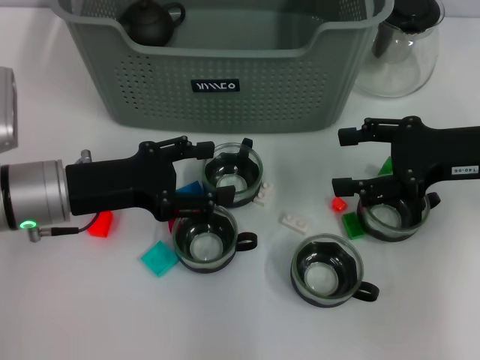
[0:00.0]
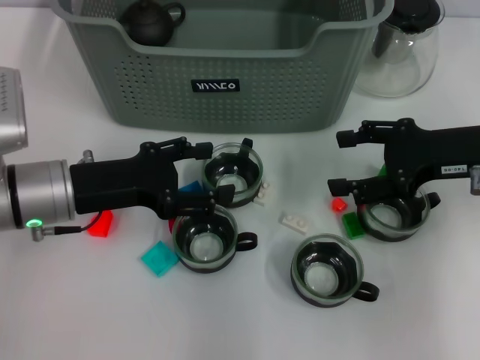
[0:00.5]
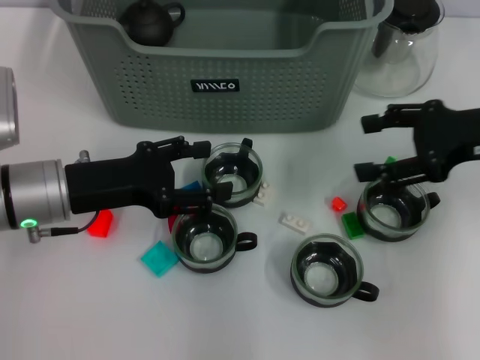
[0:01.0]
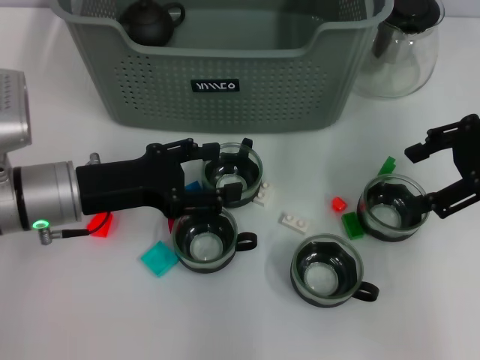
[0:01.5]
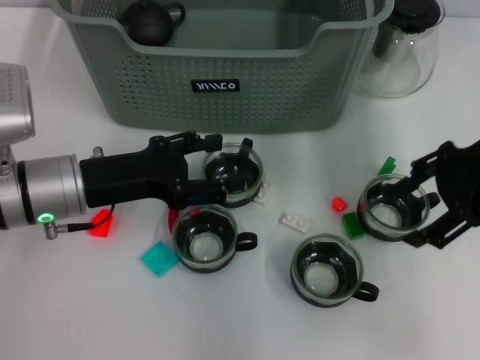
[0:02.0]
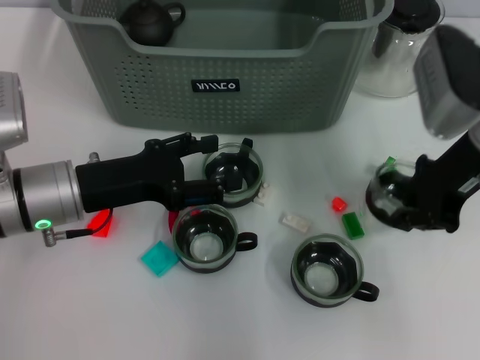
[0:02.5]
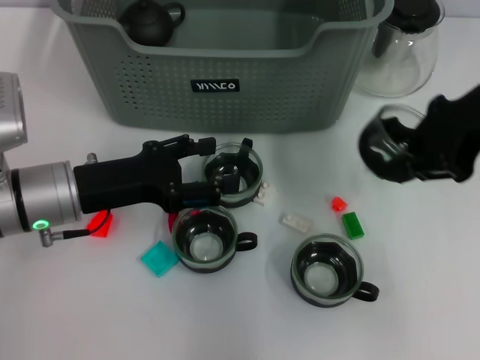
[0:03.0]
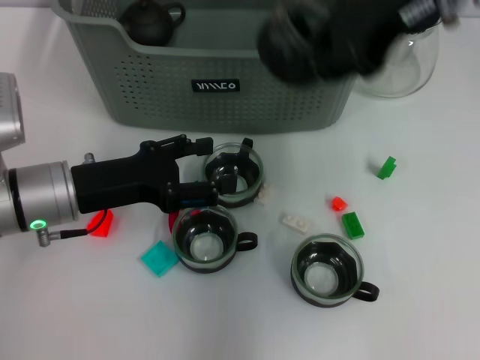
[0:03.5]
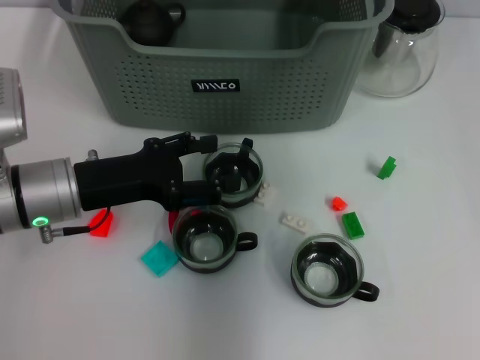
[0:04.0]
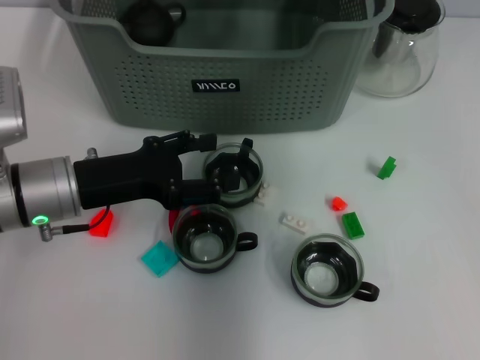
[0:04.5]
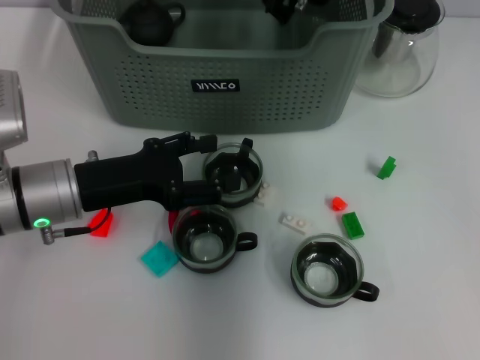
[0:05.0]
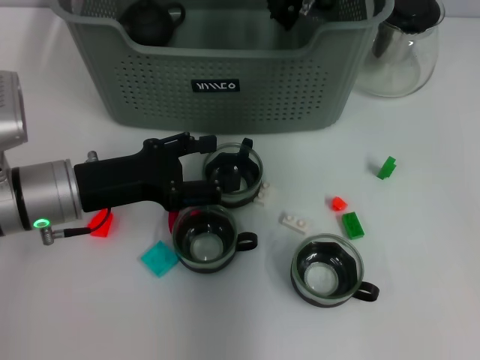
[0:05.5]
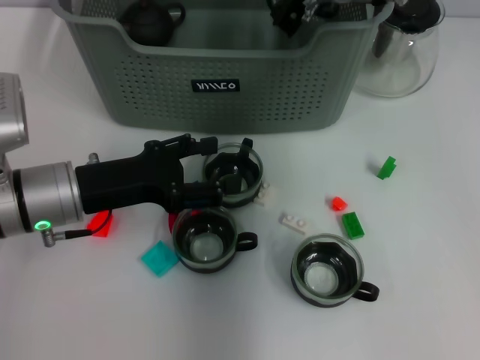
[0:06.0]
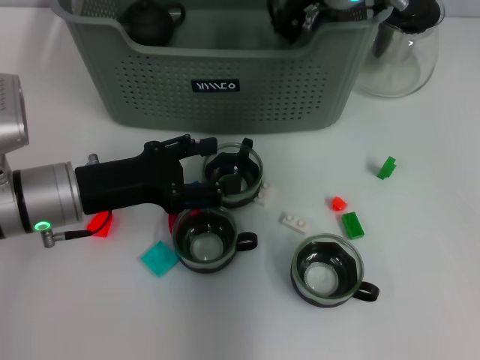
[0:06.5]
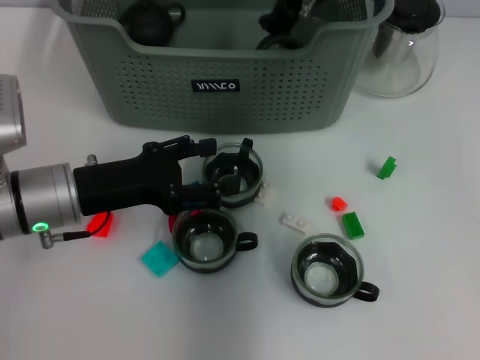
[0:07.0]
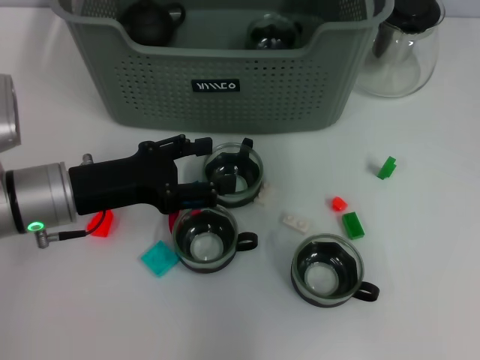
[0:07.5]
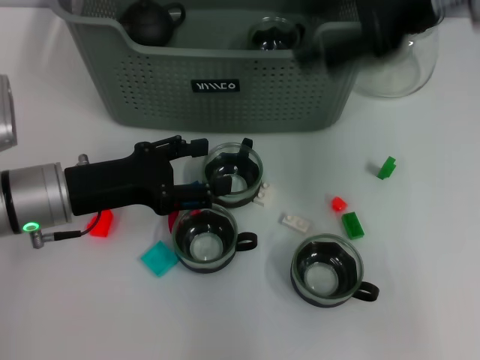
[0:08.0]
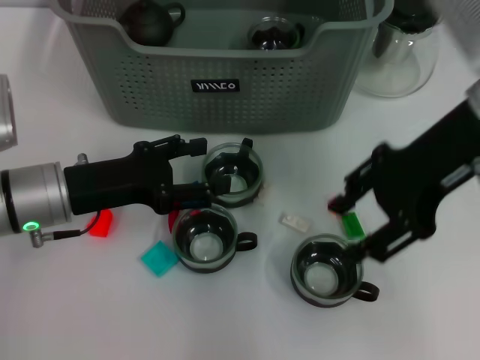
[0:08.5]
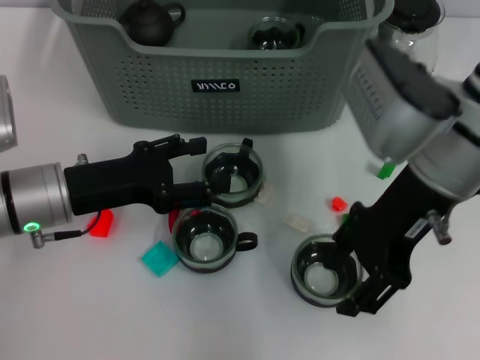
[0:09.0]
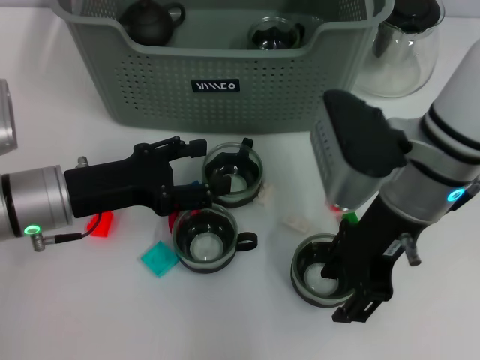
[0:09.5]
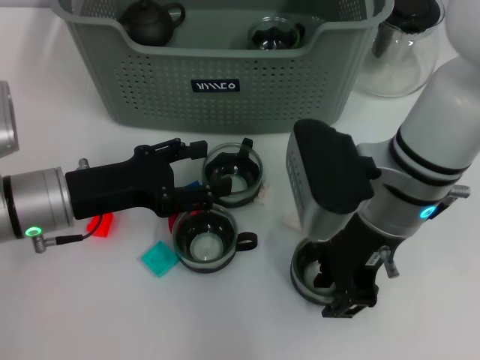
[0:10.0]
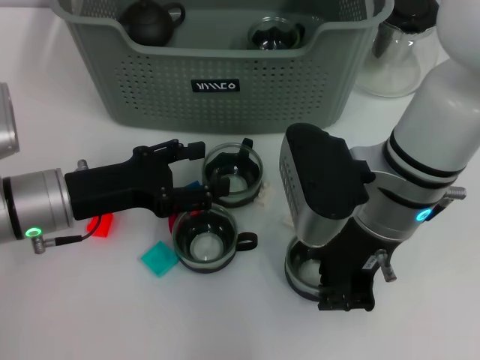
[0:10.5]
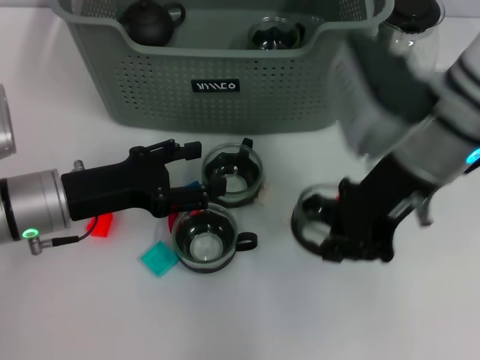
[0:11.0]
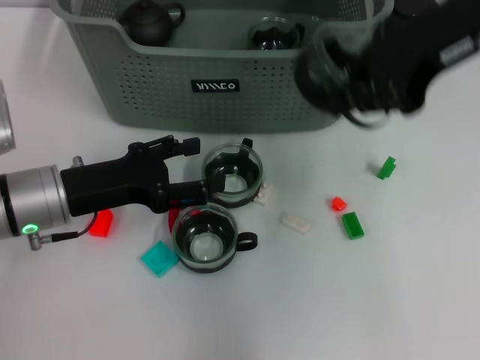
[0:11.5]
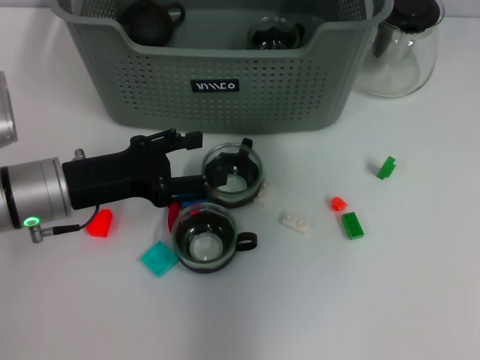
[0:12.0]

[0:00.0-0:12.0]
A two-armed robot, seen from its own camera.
Task of the whole recording: pick up the teacup on the table and place it into the storage bin, pick up the block on the table and place it into the storage bin.
Step, 0:00.0 to 0:02.0: Grasp the cup with right gripper.
Step, 0:02.5 to 0:06.5: Place the cup in the storage box with right gripper.
Step, 0:07.0 to 0:10.0: Grasp the cup with right gripper.
0:00.0 to 0:02.0: The right gripper moves upward, roughly 5 cm.
0:02.0 to 0:04.0: The right gripper goes roughly 25 cm to the left, upward and forward, and closes.
0:04.0 to 0:06.0: The right gripper is displaced downward by roughly 10 cm.
0:06.0 to 0:08.0: The right gripper goes some 20 cm backward, to the right and upward, and opens its fingers.
0:08.0 to 0:10.0: The right gripper goes approximately 20 cm downward and to the left.
0:10.0 to 0:12.0: The right gripper is displaced upward and forward by some 25 cm, and closes up.

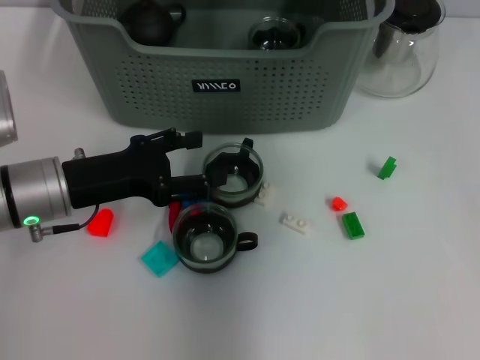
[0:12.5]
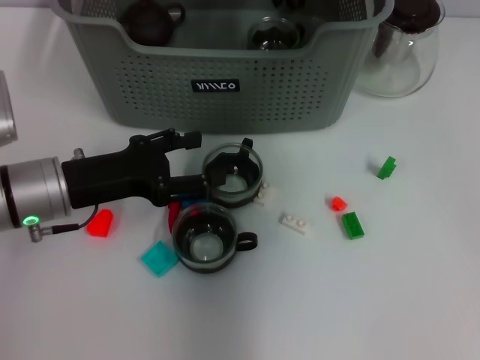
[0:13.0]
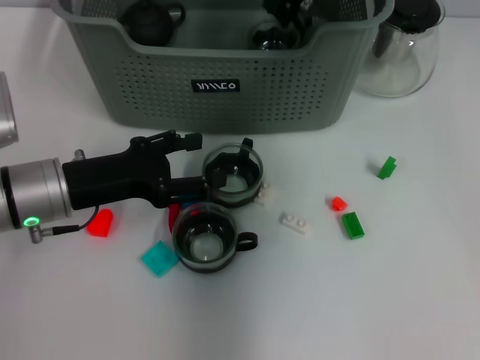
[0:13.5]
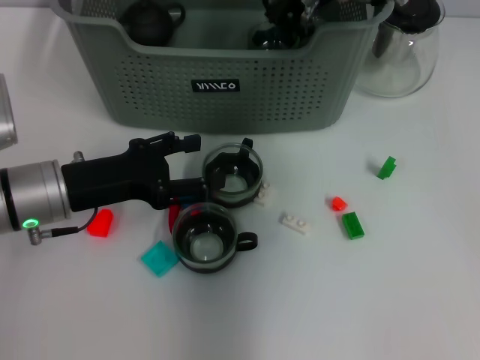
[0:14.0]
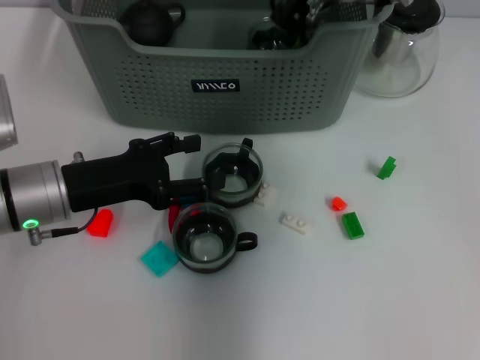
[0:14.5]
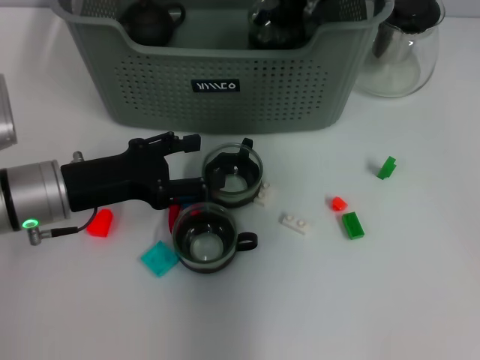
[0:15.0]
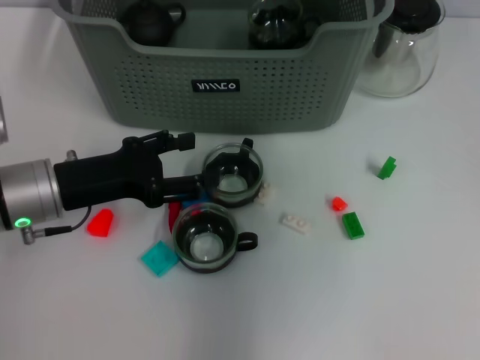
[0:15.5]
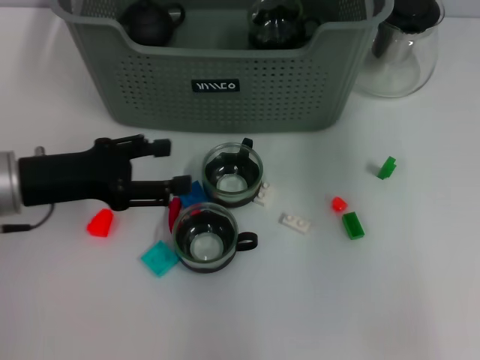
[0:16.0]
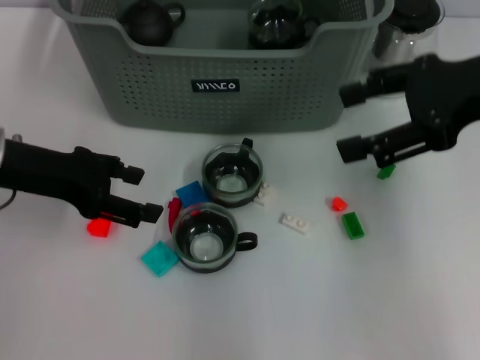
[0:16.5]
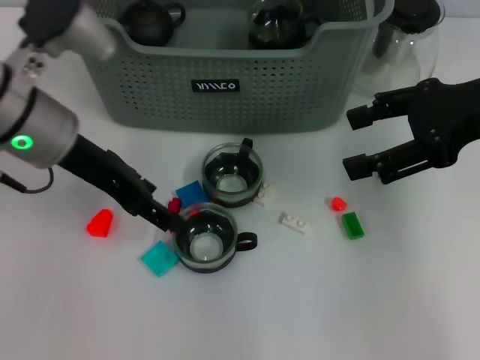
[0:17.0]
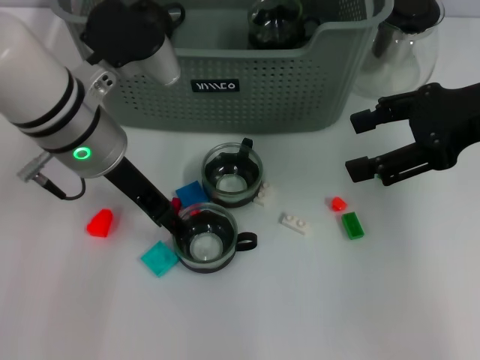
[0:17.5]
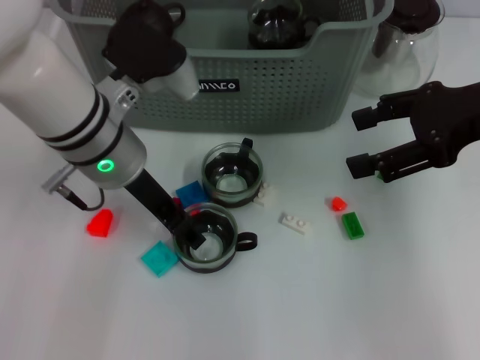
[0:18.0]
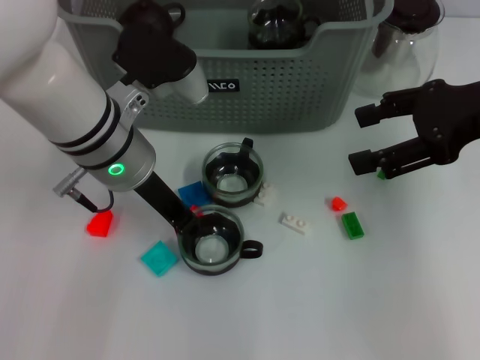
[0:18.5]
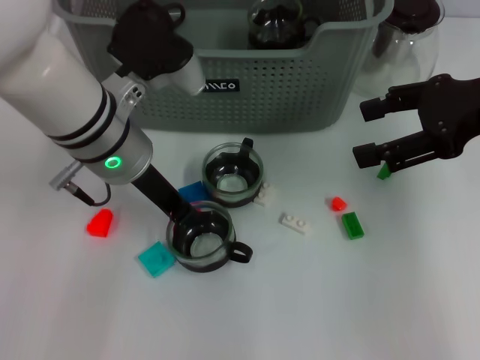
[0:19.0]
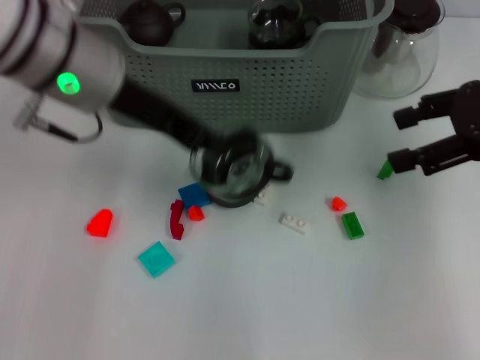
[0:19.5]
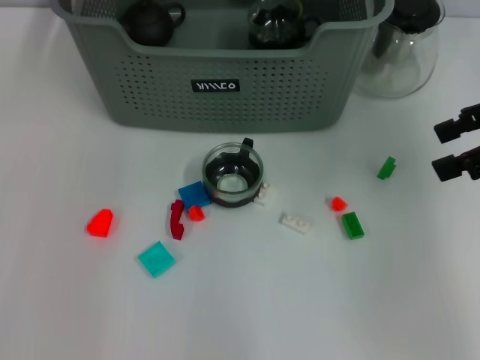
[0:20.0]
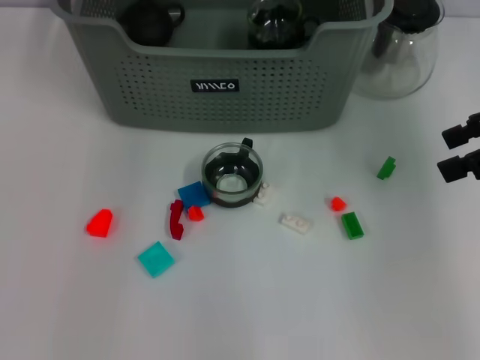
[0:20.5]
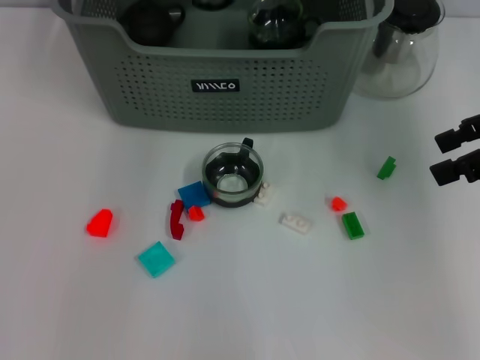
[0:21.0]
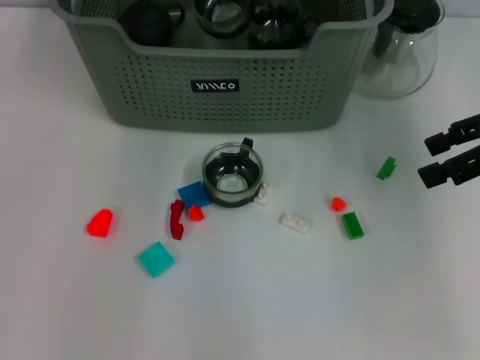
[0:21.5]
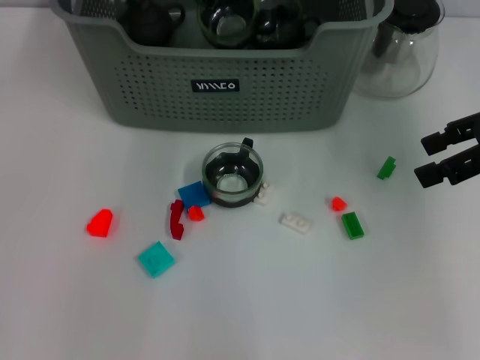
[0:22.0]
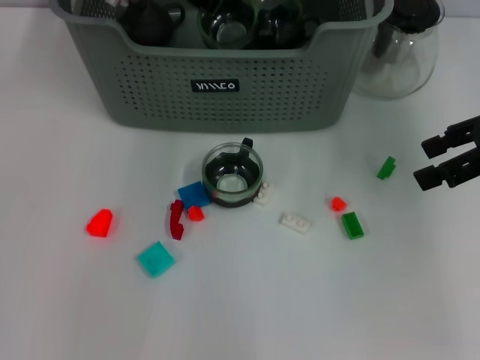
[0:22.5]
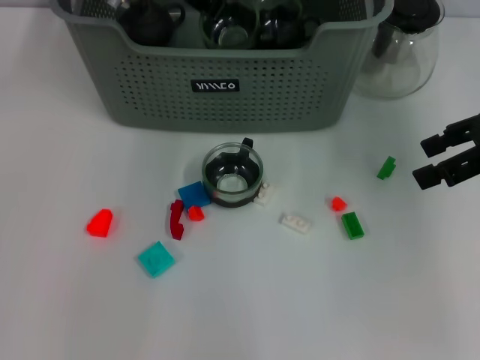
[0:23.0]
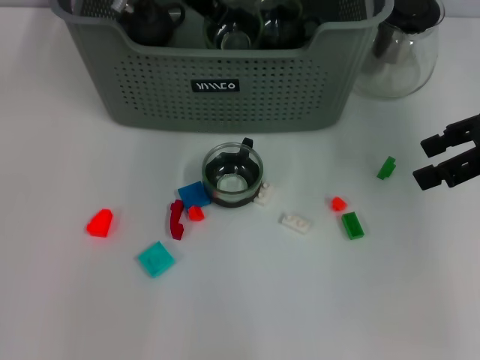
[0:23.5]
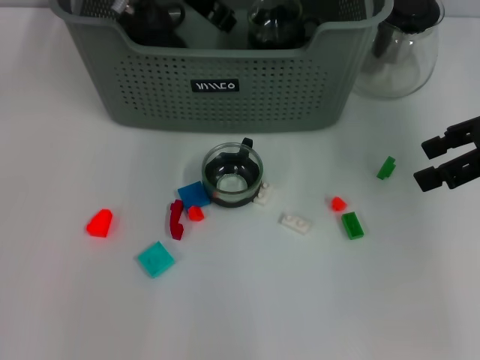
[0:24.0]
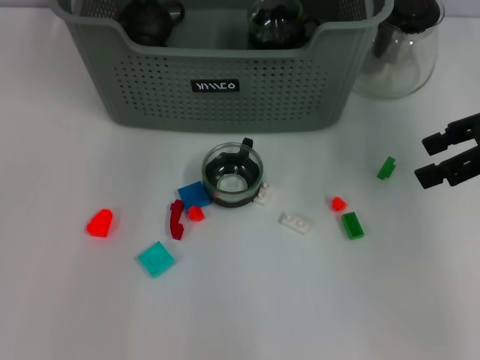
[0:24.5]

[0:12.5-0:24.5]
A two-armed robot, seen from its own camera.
Task of the whole recording: pick up the teacup on the table and place it into the storage bin, pick up the block on the table and place it into the storage bin.
Step, 0:12.5 to 0:15.0: Place the cup in the storage box with right gripper.
Step, 0:15.5 to 0:18.5: Grasp the cup with left gripper.
Step, 0:19.0 to 0:23.5: Place the cup in the storage box with left gripper.
0:12.5 to 0:14.5: The right gripper goes approximately 5 cm downward.
0:14.5 to 0:16.5: The right gripper is displaced to the right and backward by roughly 20 cm, and opens up. The left gripper moves upward, approximately 10 cm.
0:16.5 to 0:18.5: The left gripper moves to the right, roughly 15 cm, and closes its fingers.
0:18.5 to 0:20.5: The right gripper travels to the right by some 5 cm, while the left gripper travels upward and forward by some 20 cm, and closes.
0:20.5 to 0:22.5: The left gripper moves downward, approximately 10 cm.
0:22.5 to 0:24.5: The left gripper shifts approximately 10 cm upward, and opens.

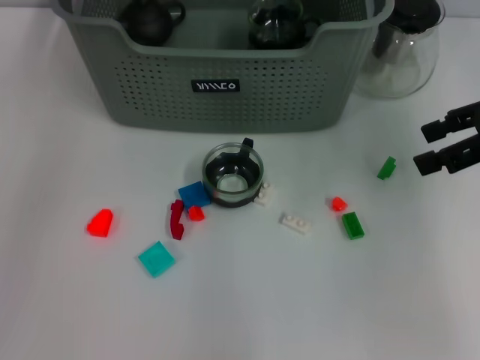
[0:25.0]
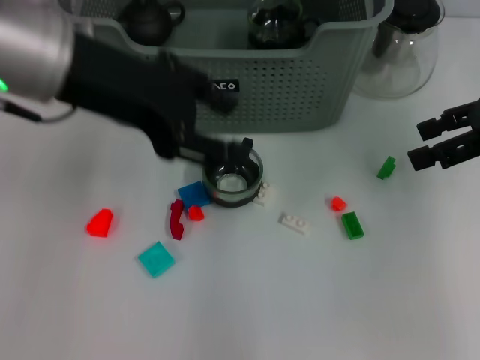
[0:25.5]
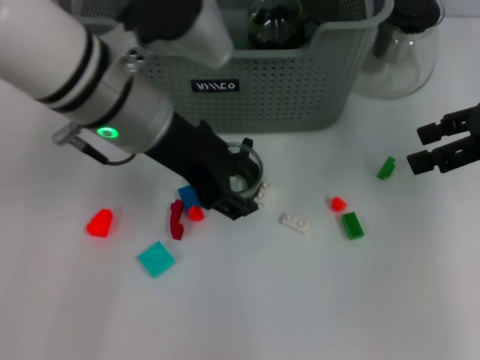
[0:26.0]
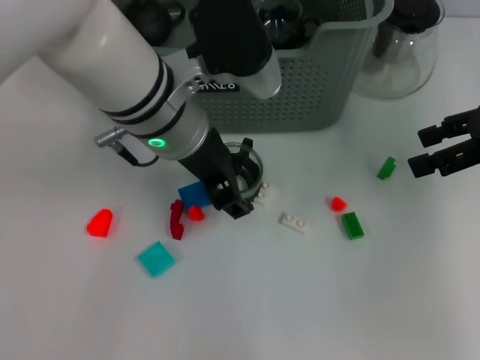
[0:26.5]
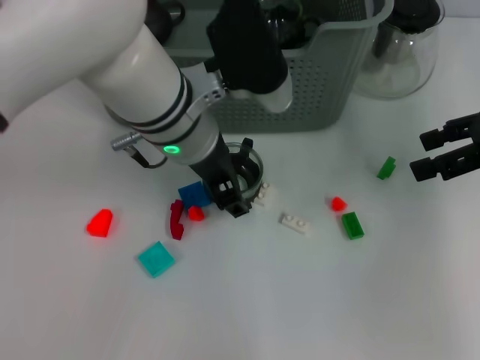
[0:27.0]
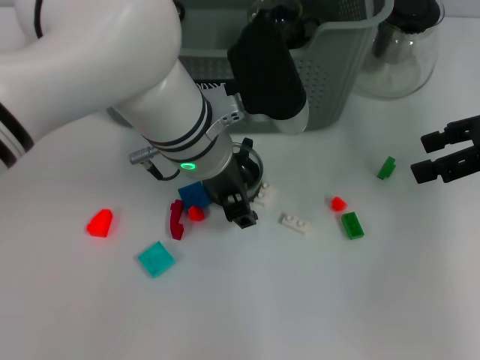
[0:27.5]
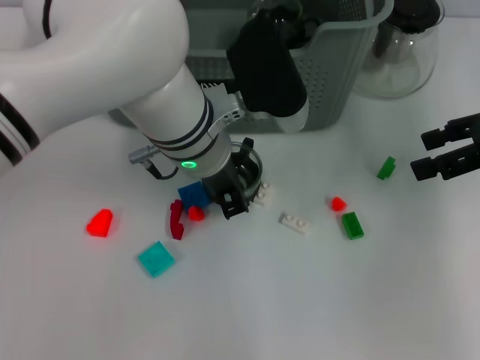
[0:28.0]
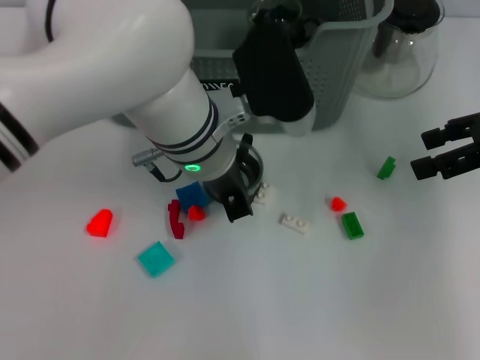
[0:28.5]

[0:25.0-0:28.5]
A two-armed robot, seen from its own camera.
Task of the whole recording: pick up the teacup on the table and place it into the storage bin, pick up the block on the table and place it into the storage bin.
Step, 0:25.0 to 0:28.0: Grasp the cup with left gripper.
0:25.0 to 0:27.0: The left gripper moves downward and to the right, approximately 20 cm.
0:27.0 to 0:28.5: The left gripper closes up.
